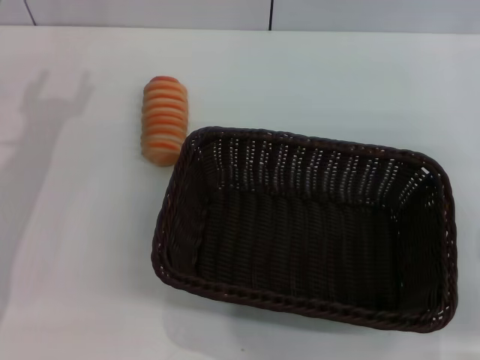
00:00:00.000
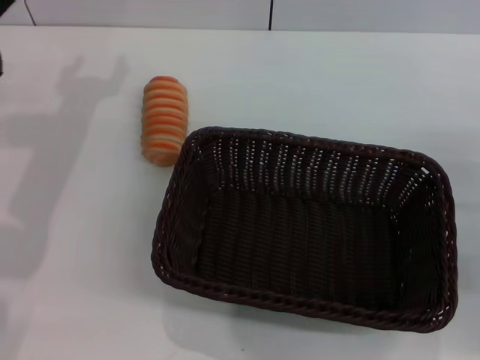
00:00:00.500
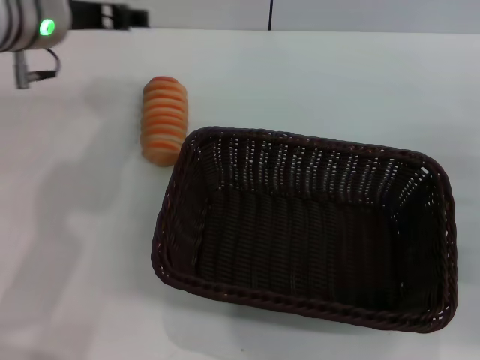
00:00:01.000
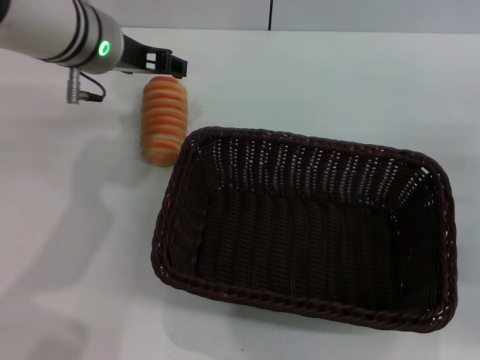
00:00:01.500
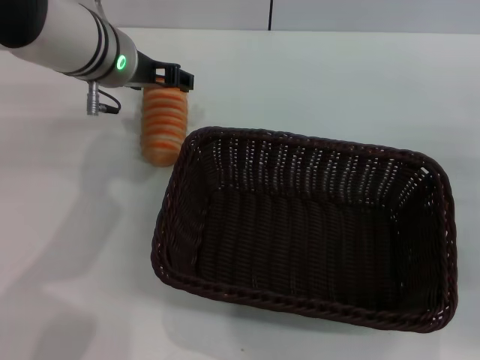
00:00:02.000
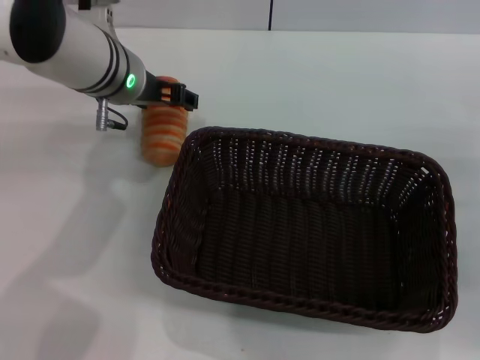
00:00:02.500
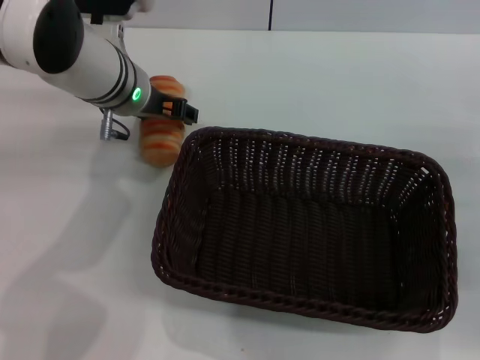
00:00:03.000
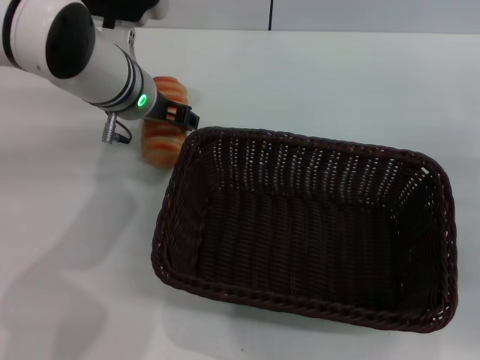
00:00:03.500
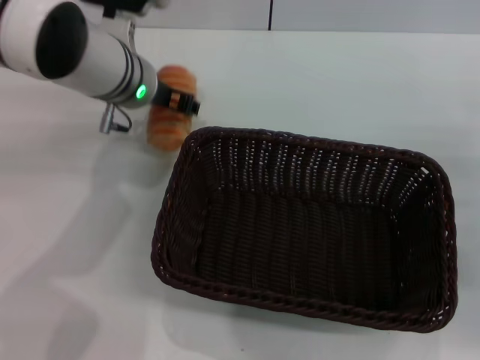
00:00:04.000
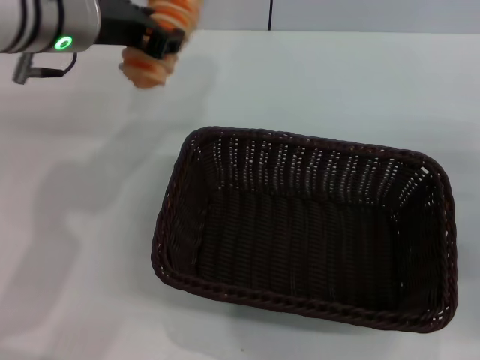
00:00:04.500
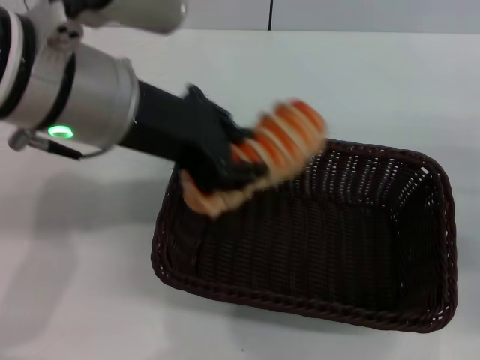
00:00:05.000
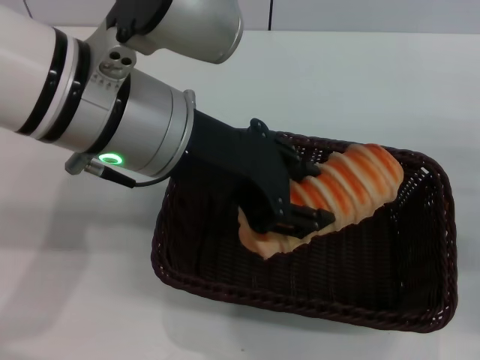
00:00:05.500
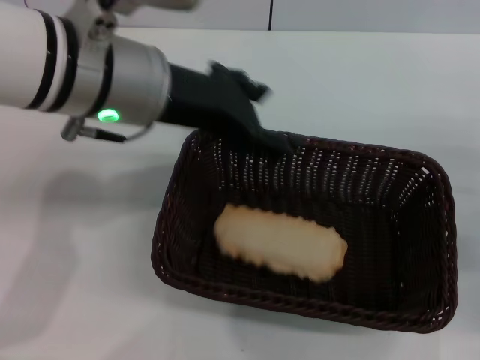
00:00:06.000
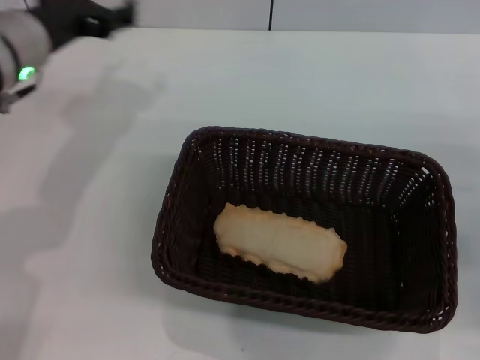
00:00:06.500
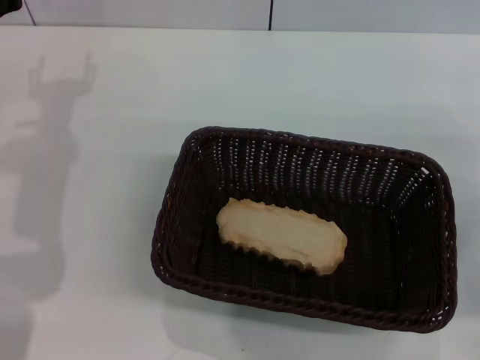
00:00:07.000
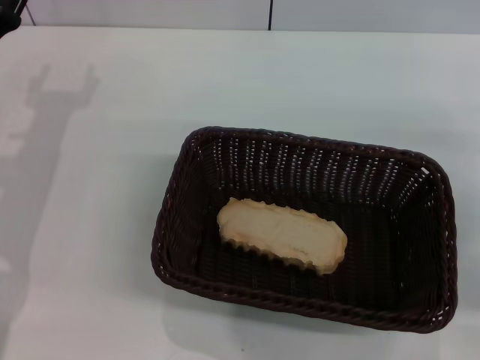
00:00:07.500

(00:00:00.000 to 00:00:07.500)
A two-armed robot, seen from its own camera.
Step, 00:00:00.000 - 00:00:04.000: Pick up the long bread with the left gripper.
Step, 00:00:05.000 - 00:00:06.000: Place the long bread into the dark basket with the left gripper.
00:00:00.000 - 00:00:02.000: The left gripper heads to the right, forward and upward, covering roughly 20 cm.
00:00:02.000 - 00:00:04.000: The left gripper closes up.
00:00:04.000 - 00:00:05.500: The left gripper goes about 20 cm backward and upward, and closes its fingers.
00:00:05.500 - 00:00:07.500: The left gripper moves to the left and downward, approximately 25 cm, and opens up.
